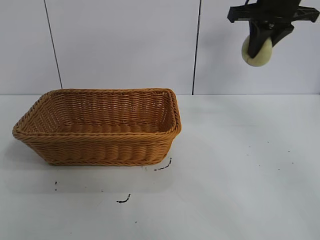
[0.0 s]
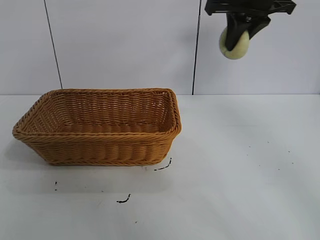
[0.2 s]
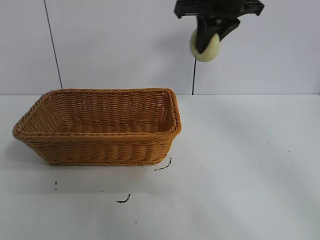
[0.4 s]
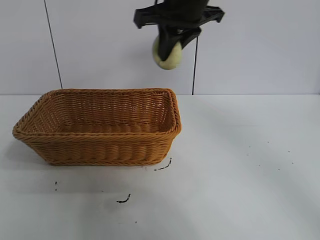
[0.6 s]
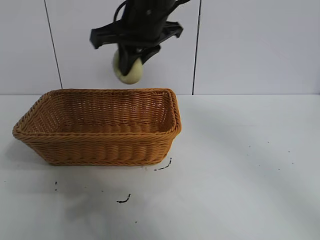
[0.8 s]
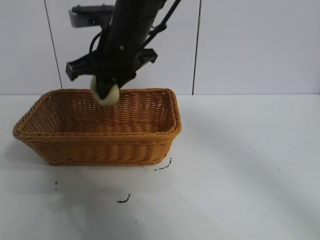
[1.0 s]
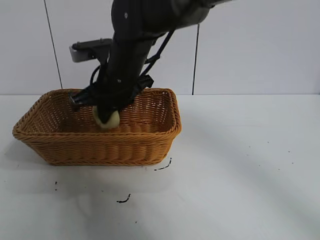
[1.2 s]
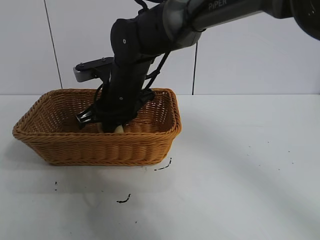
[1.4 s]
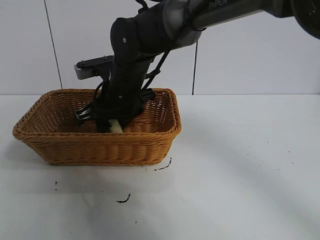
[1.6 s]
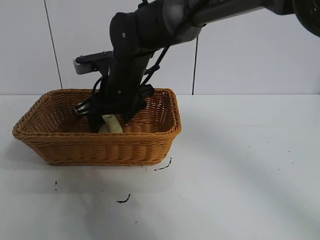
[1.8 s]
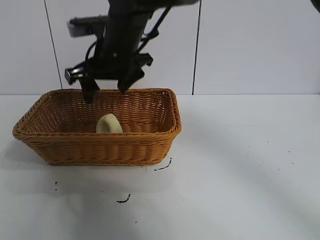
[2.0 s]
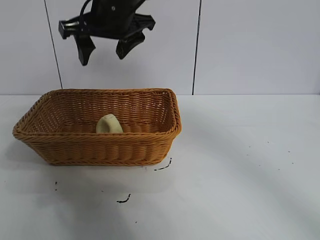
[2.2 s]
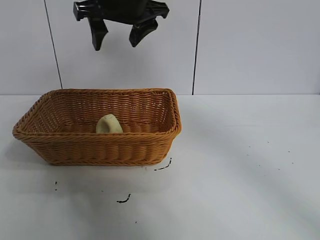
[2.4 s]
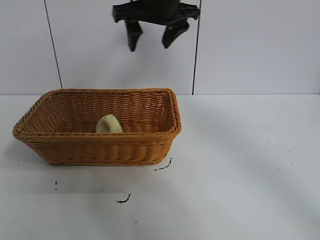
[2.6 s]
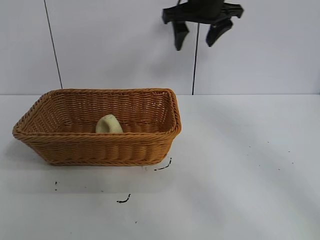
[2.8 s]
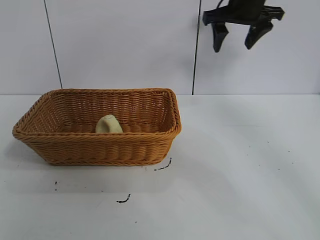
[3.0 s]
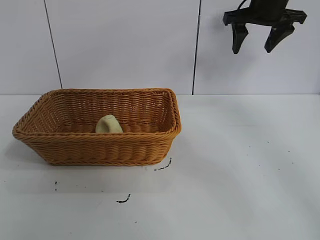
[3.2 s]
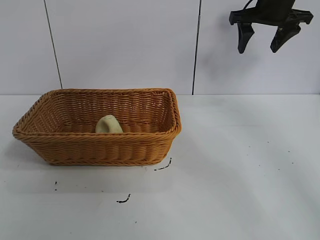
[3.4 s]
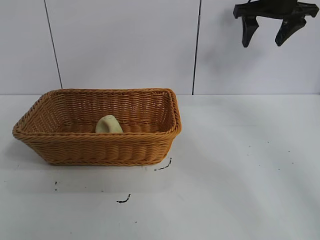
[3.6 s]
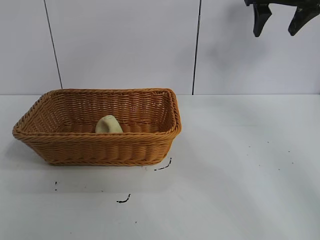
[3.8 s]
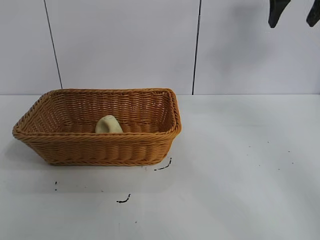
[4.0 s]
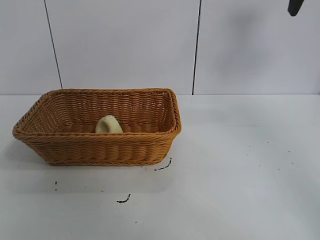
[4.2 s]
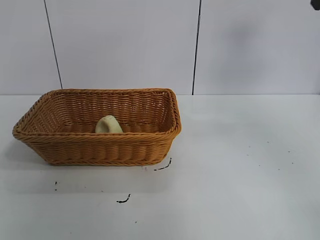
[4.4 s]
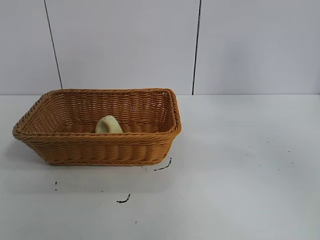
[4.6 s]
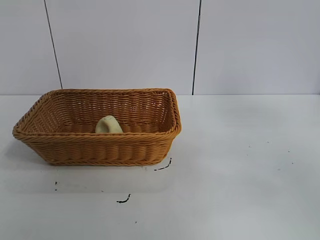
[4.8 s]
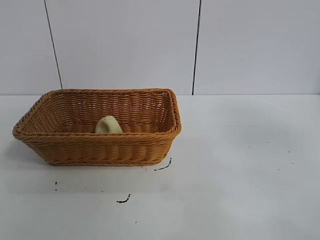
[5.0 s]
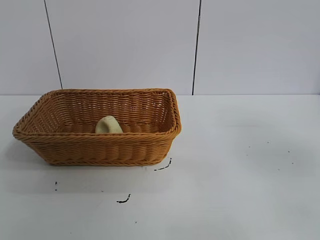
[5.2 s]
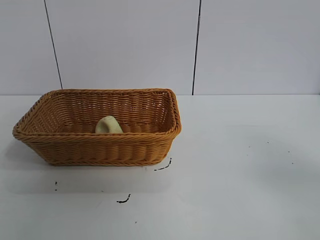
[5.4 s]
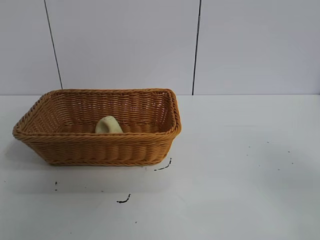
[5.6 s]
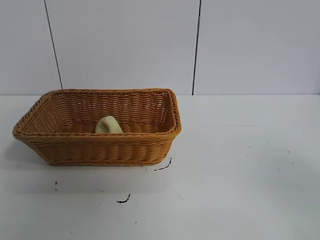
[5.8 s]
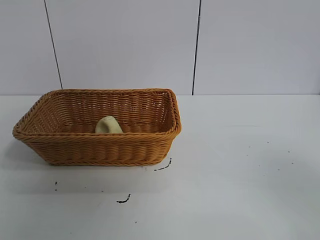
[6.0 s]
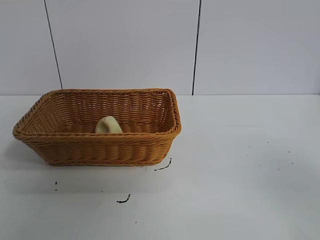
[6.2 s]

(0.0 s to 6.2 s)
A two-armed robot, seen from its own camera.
Task of the whole recording: pick up the egg yolk pastry and put it into the basket.
Step, 0.0 s - 1.6 s: Place the egg yolk pastry in the basket with right gripper.
